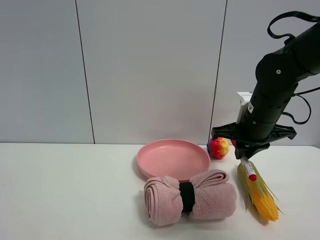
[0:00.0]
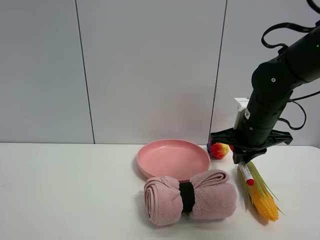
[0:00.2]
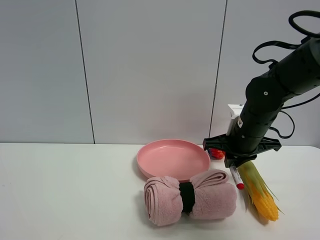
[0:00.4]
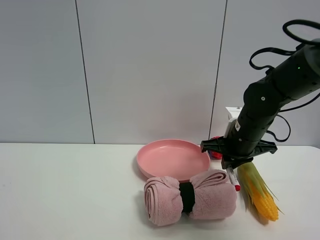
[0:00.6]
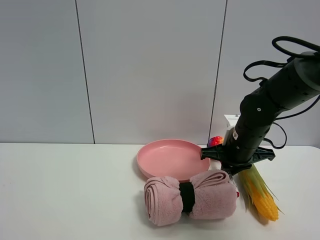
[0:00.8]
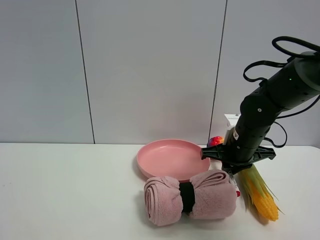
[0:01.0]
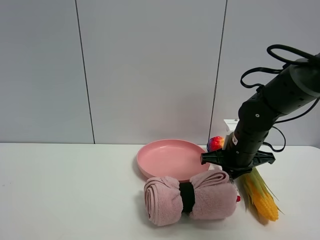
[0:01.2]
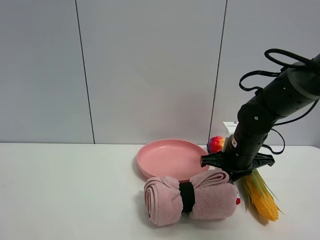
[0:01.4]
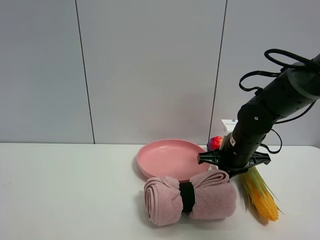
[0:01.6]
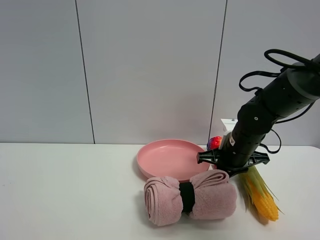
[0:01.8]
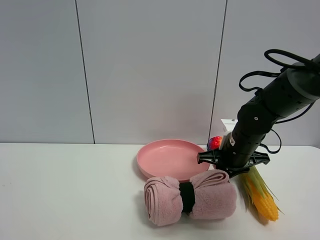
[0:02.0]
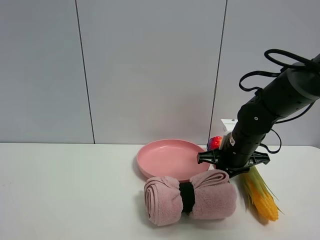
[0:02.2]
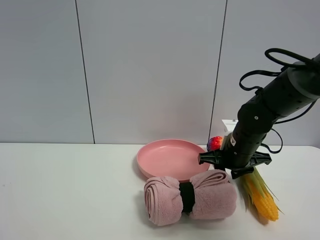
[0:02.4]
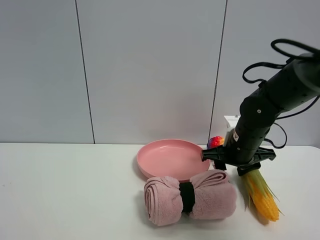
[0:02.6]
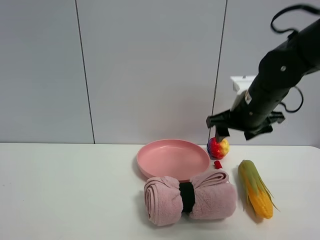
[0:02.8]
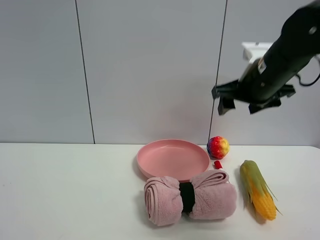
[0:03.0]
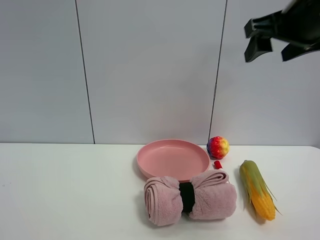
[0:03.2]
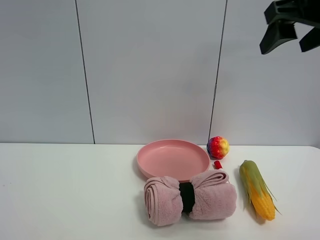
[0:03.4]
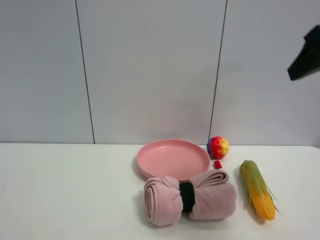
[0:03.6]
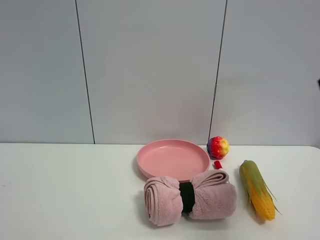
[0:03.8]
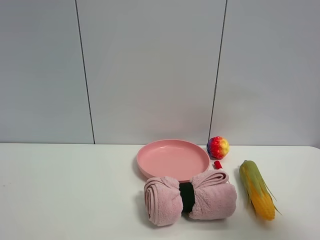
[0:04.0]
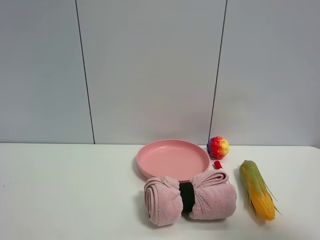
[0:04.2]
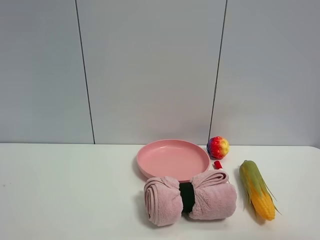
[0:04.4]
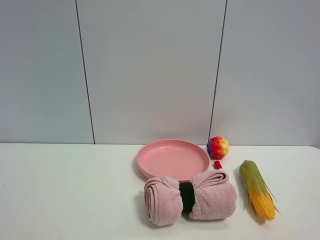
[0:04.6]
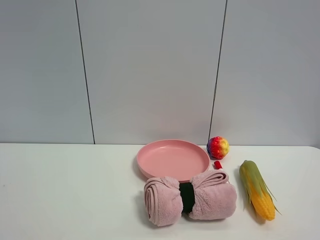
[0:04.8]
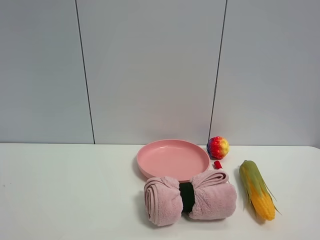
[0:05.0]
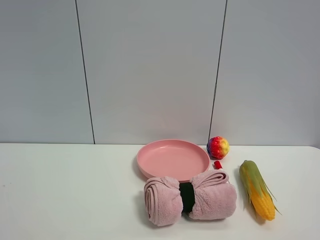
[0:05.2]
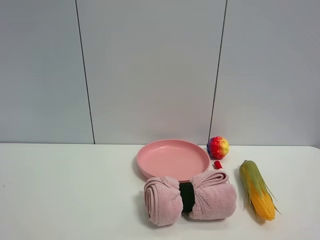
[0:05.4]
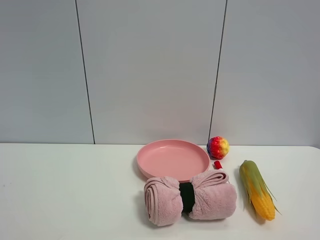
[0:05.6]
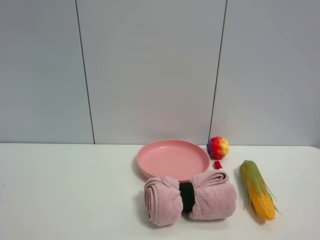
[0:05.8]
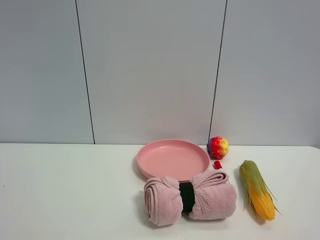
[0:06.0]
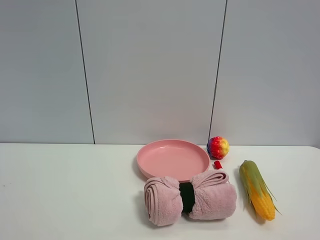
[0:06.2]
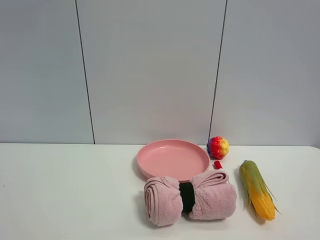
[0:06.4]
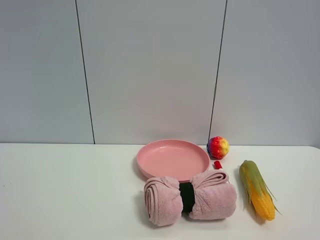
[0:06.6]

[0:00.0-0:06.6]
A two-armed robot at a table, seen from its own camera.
Task of the whole recording: the gripper move the object.
Step, 0:00.0 to 0:02.8: Place the red marker pen on the table with the right gripper.
0:00.0 to 0:01.6: The right gripper moves downward, roughly 5 cm.
0:01.6 to 0:03.2: The right gripper shifts some 25 cm upward, and opens up.
0:03.2 to 0:05.0: The right gripper heads backward, covering roughly 30 cm.

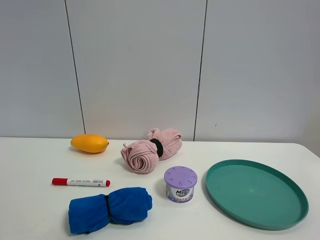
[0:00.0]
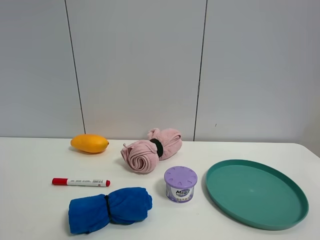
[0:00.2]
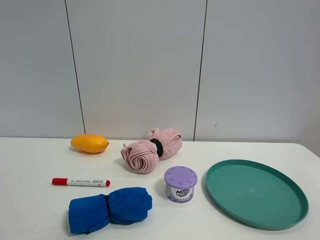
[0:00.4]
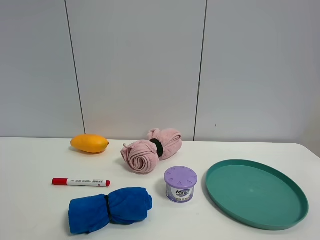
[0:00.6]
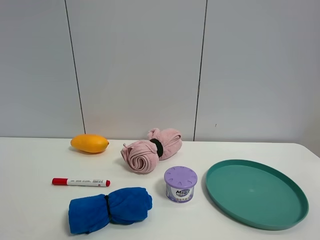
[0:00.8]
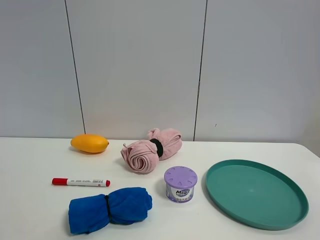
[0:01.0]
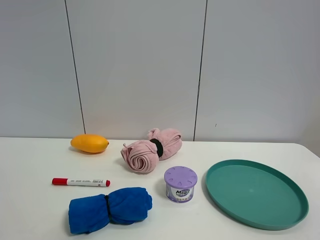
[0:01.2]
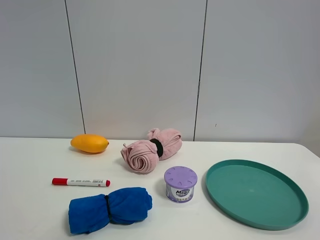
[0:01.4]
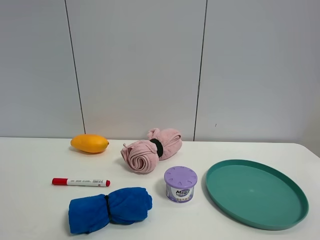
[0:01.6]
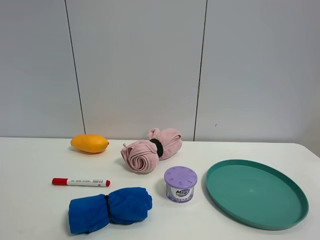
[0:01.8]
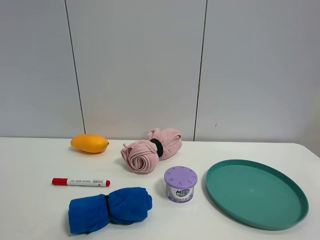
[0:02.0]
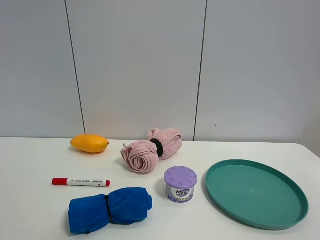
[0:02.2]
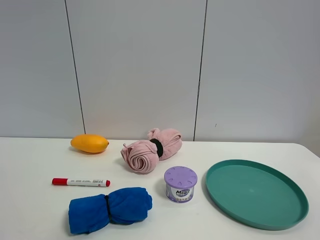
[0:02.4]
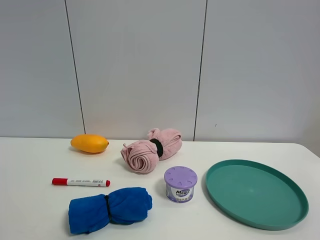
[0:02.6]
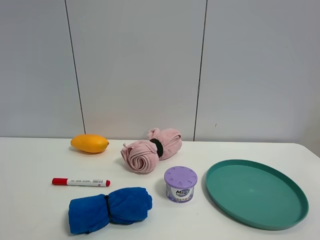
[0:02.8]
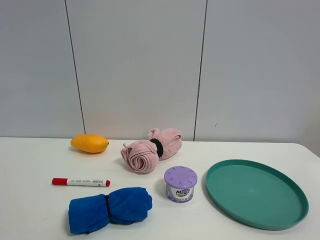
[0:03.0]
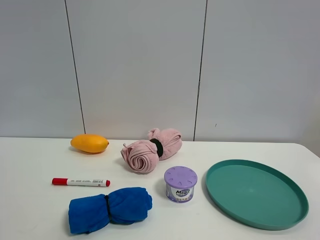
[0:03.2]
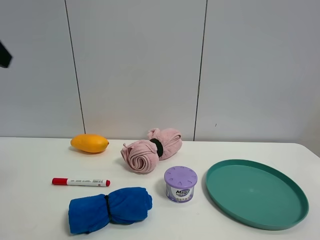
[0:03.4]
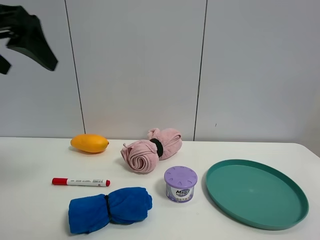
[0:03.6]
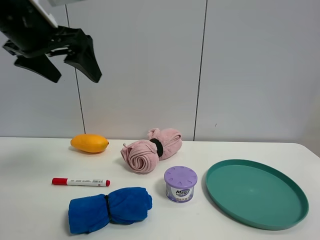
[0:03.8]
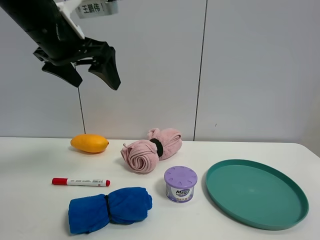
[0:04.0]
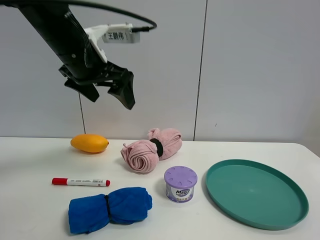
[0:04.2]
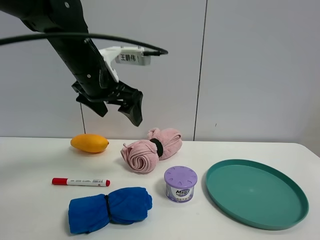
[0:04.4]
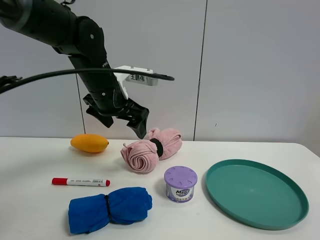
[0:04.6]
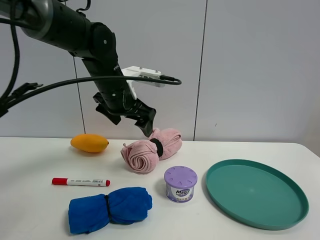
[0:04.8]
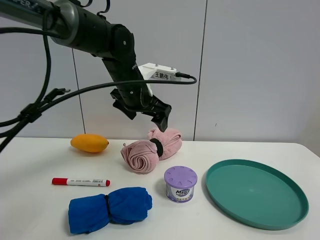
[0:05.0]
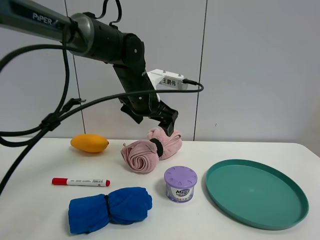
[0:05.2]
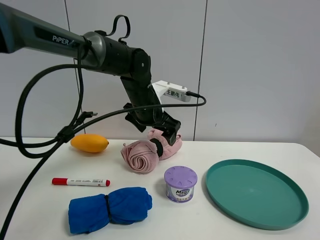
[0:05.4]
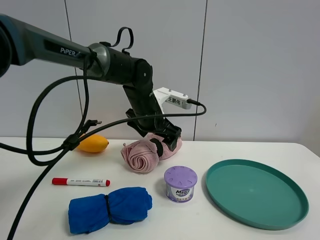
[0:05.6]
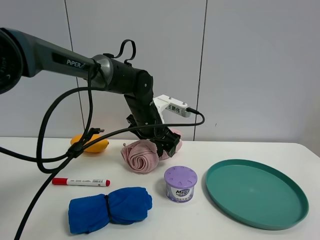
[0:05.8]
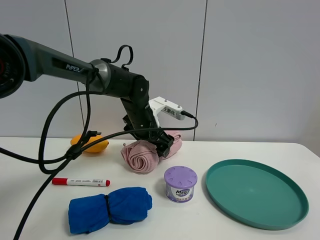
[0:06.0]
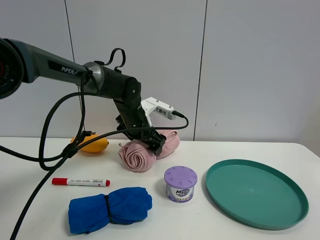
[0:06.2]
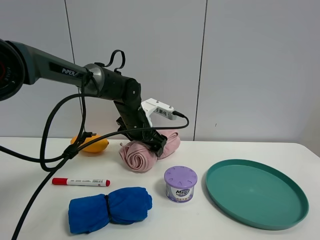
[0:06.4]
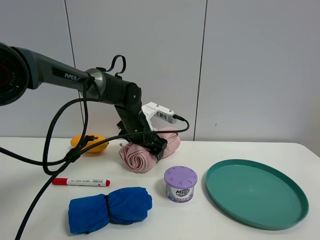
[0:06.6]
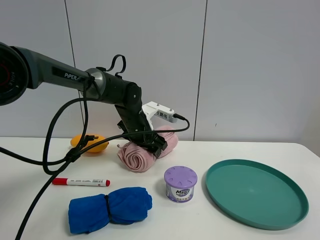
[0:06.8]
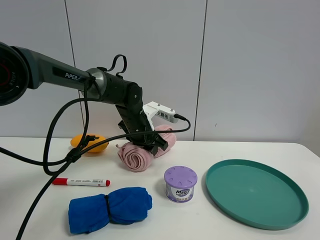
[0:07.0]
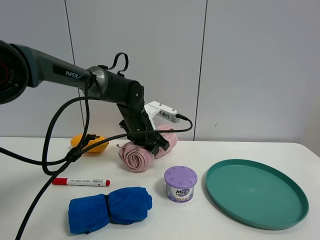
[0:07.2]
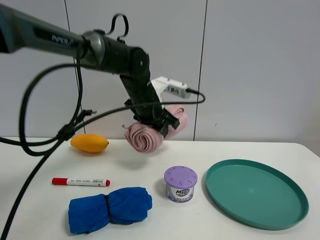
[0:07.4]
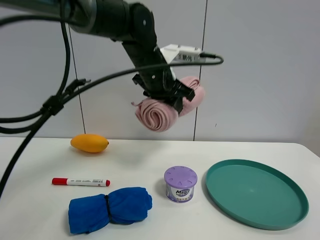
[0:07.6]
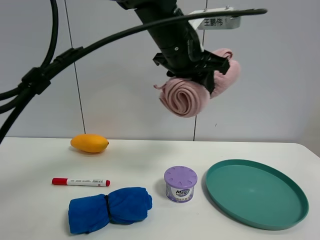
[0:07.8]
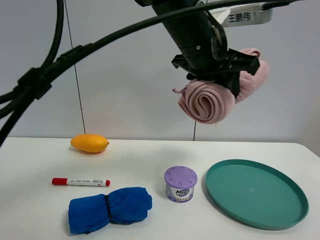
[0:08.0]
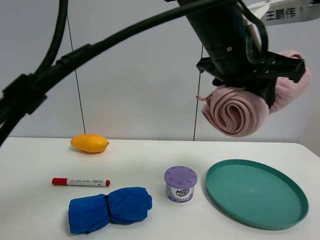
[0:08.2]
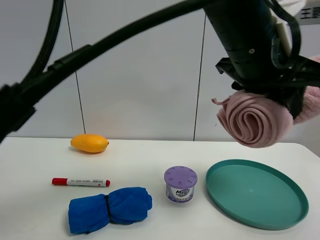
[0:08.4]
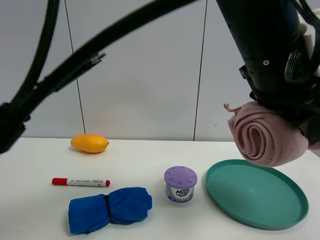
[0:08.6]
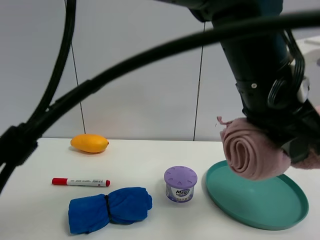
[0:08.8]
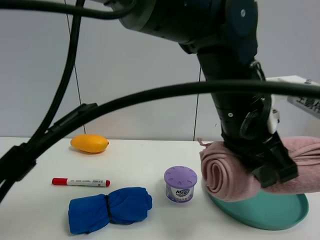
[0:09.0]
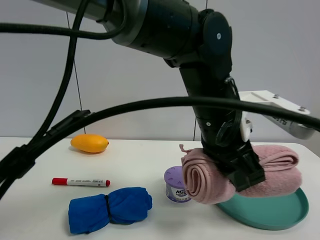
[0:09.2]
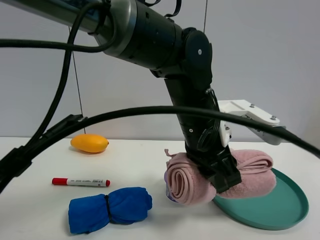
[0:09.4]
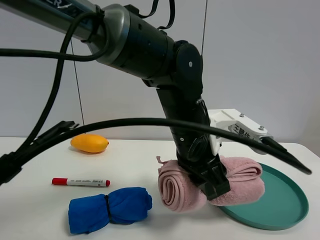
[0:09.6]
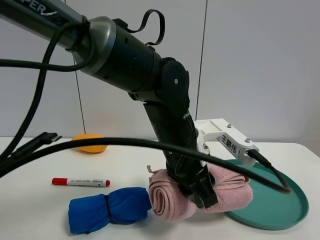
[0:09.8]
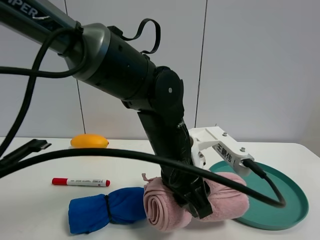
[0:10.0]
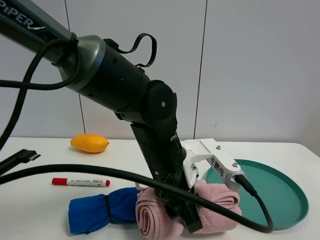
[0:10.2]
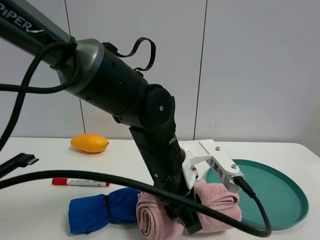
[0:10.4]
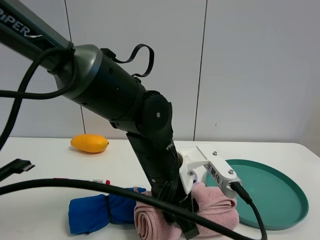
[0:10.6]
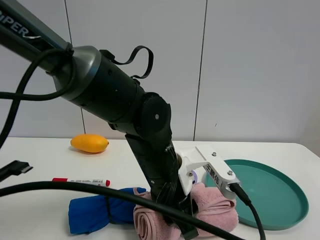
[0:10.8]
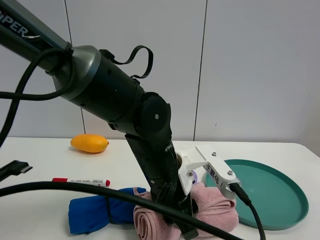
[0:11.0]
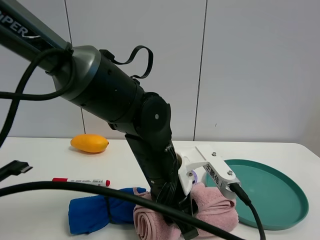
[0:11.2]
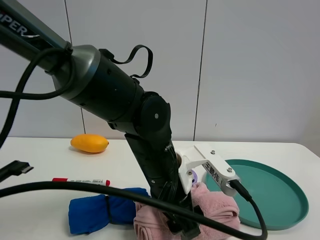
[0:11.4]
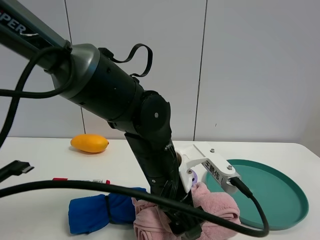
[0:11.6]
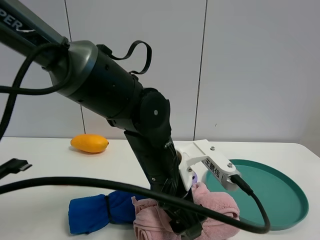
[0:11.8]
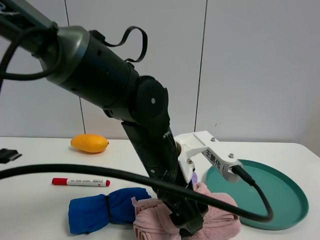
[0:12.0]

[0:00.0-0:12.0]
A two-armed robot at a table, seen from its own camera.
Task of the whole recording: the gripper move the object.
Step, 0:00.0 to 0:07.0: Grasp the pink towel with the left gripper.
Step, 0:07.2 to 0:12.0: Place the pink towel on the table with the left gripper.
0:00.0 to 0:01.6: Neither gripper changes place.
0:03.0 to 0:04.4: The left gripper goes about 35 cm forward, to the right and downward.
0:04.4 to 0:06.0: The left gripper is displaced downward, forward and to the right by roughly 15 cm.
0:06.0 to 0:07.6: The left gripper is displaced upward by approximately 10 cm, and closes.
0:07.6 to 0:09.0: The left gripper goes approximately 20 cm backward and to the right.
0:09.0 to 0:10.4: The left gripper travels downward and to the left by some 15 cm.
0:10.4 to 0:12.0: The left gripper opens its fingers.

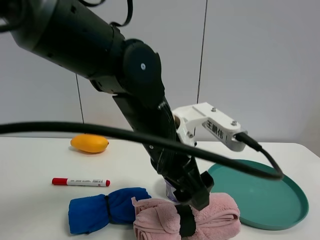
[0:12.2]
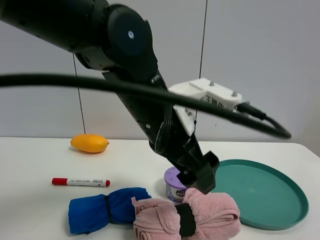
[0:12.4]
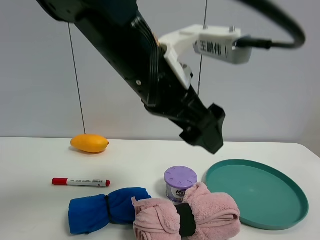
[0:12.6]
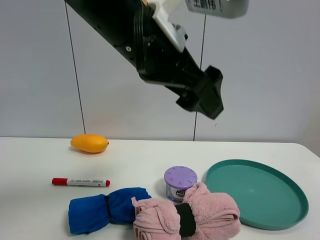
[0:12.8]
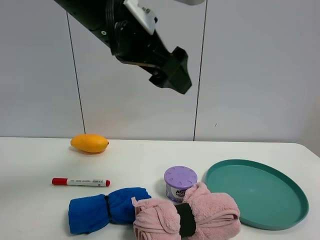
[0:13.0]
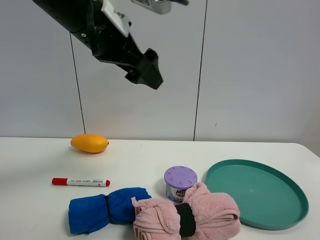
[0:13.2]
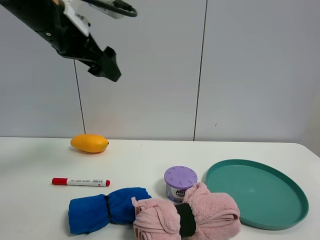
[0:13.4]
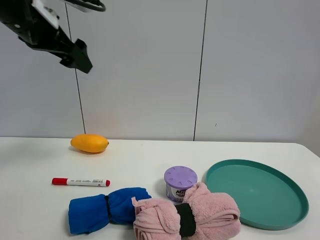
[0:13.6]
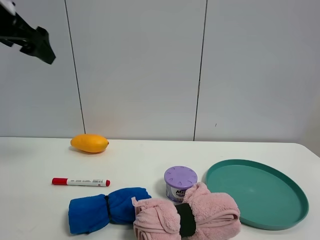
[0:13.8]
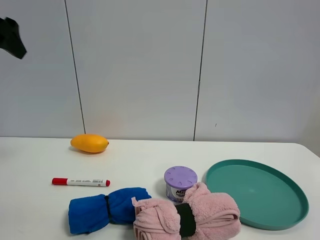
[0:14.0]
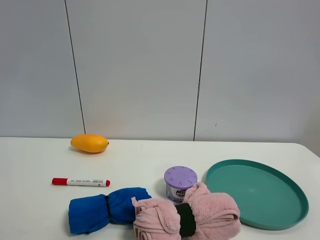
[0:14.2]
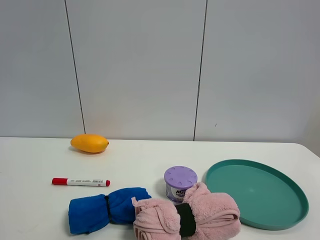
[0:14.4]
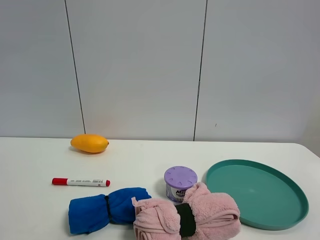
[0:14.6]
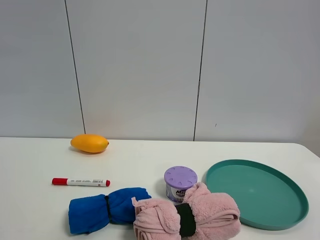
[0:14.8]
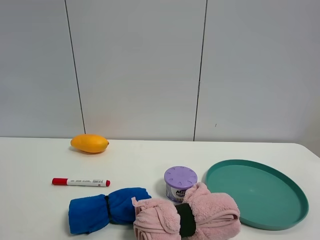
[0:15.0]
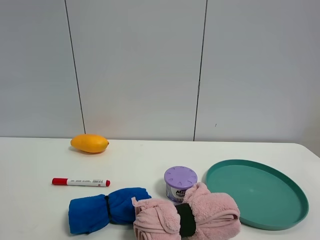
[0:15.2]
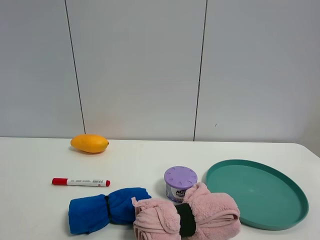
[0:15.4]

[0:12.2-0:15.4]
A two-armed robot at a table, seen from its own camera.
Task of the whole recording: the gripper move the object.
0:12.2 to 0:13.8: The left gripper is displaced to the left and upward by about 35 cm.
0:13.8 to 0:15.4: The left gripper heads backward, covering about 30 cm.
